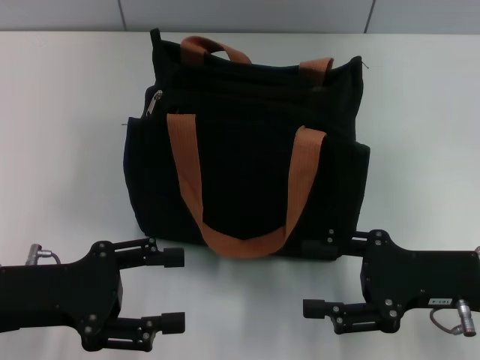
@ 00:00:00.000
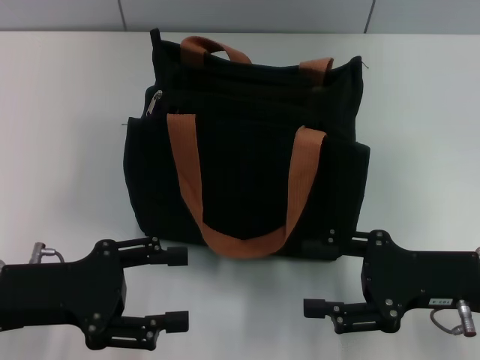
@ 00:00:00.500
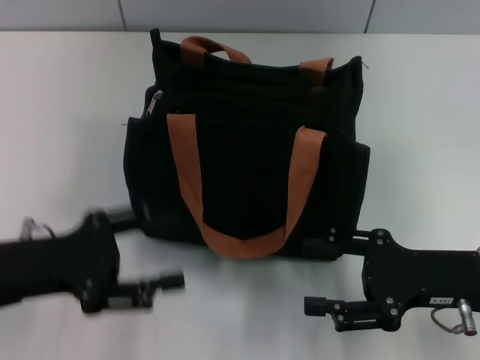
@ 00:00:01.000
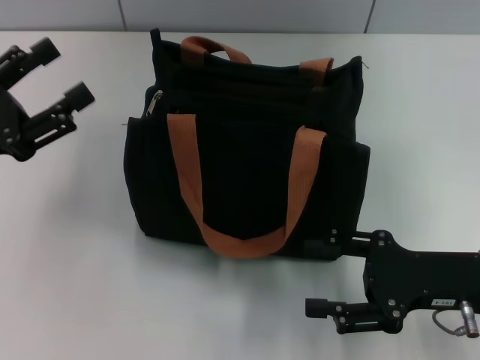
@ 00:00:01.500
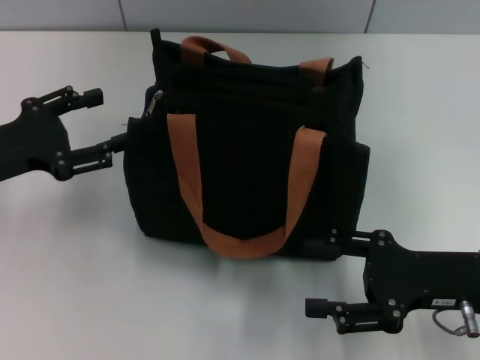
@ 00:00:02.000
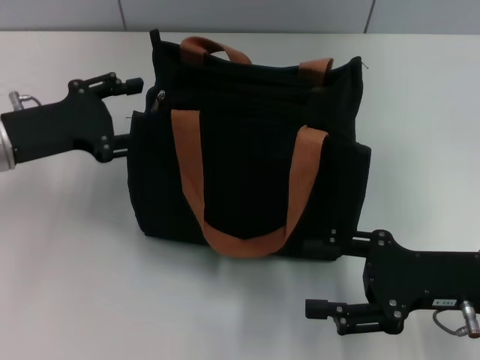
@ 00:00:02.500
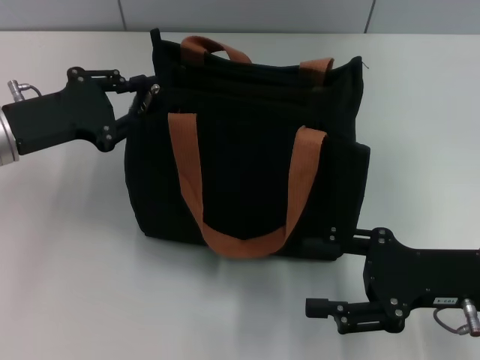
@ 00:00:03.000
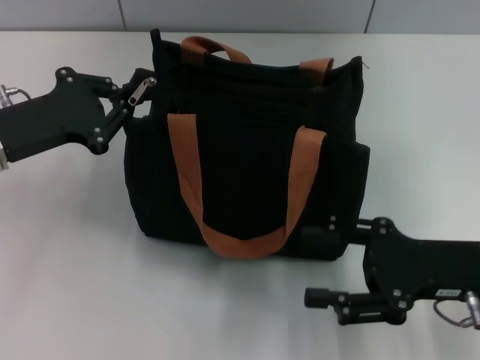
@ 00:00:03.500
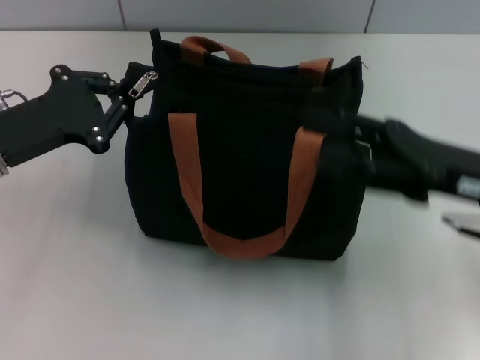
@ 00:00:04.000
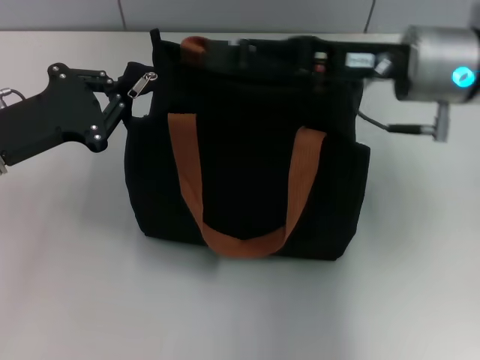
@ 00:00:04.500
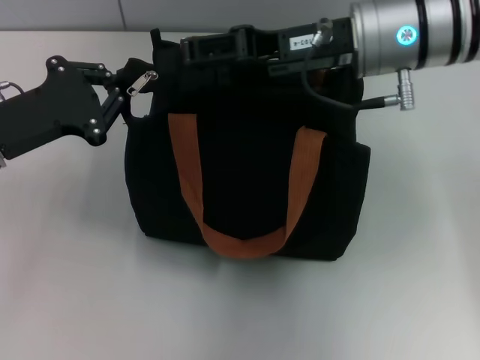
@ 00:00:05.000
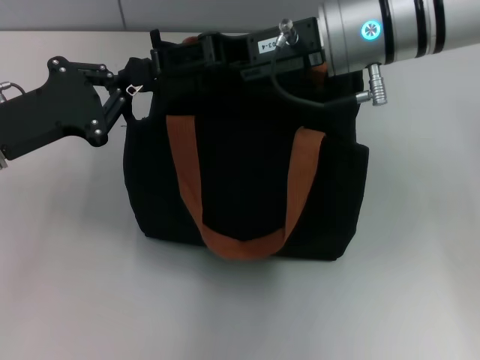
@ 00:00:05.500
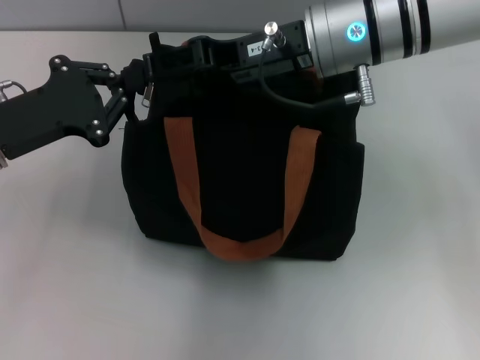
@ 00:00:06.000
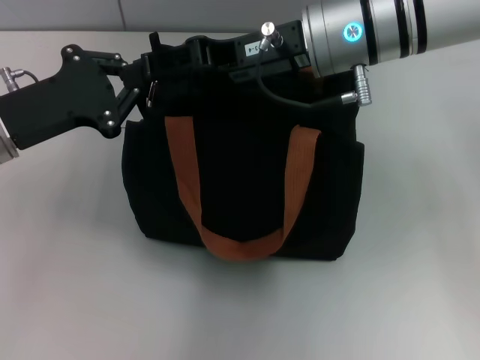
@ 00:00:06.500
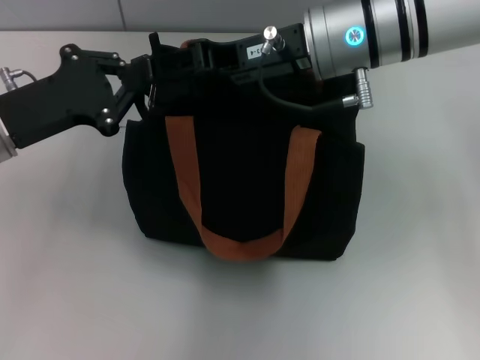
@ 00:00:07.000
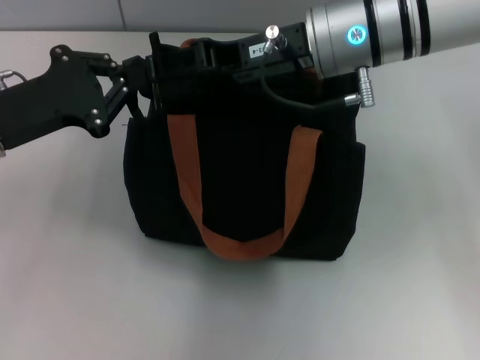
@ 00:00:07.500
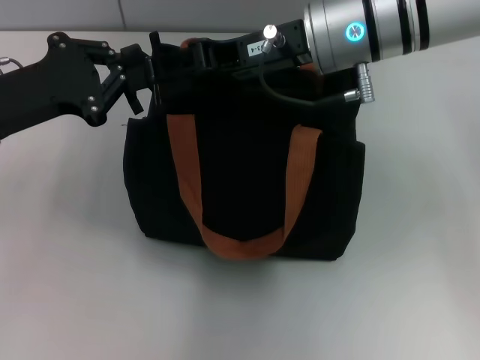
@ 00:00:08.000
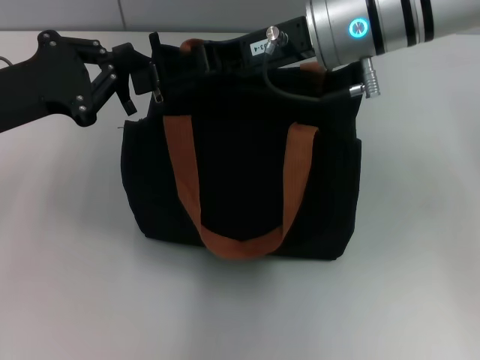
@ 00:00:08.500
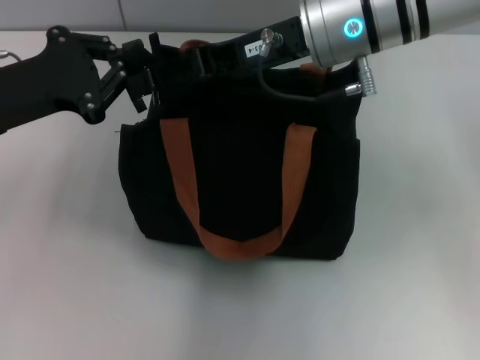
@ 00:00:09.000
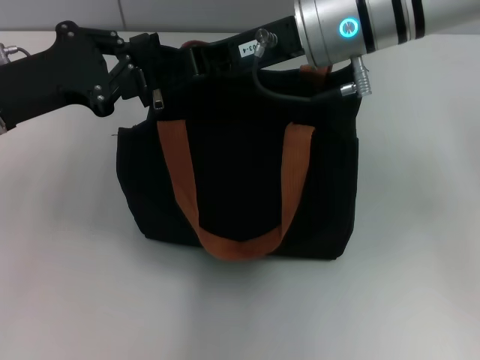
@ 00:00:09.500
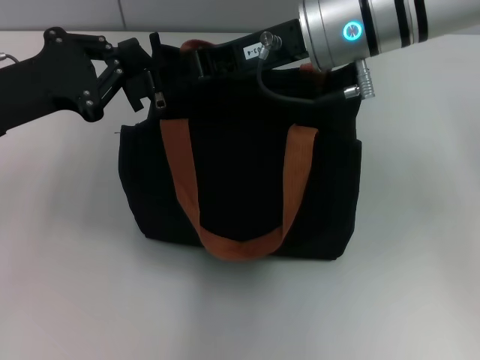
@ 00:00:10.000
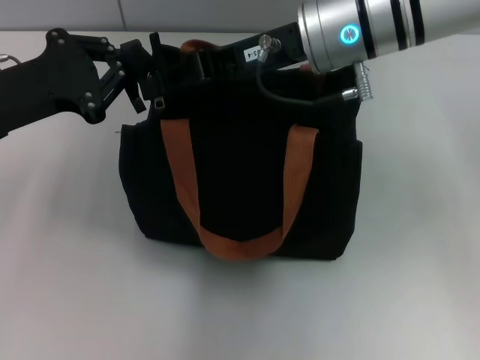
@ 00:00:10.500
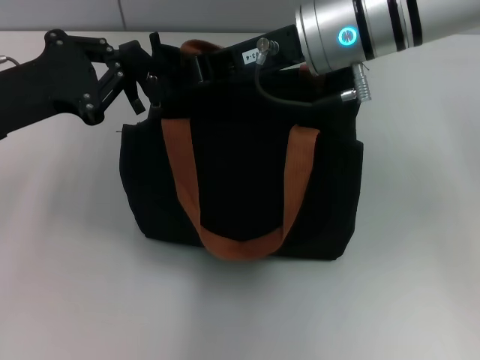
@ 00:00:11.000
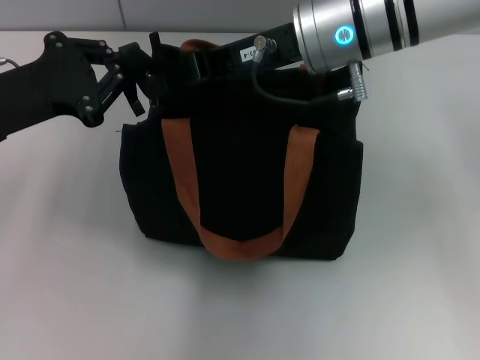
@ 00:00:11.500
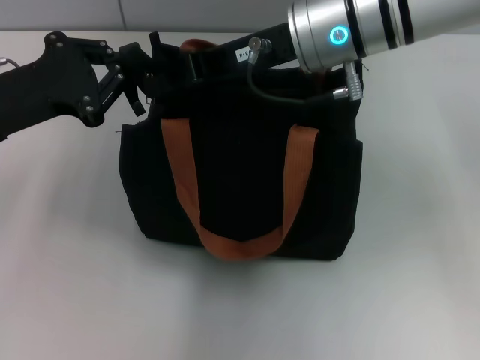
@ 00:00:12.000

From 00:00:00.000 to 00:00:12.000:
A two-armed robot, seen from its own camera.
From 00:00:00.000 to 00:00:02.000: The left gripper heads forward, covering about 10 cm.
From 00:00:02.000 to 00:00:04.000: The right gripper travels upward by about 5 cm; the left gripper closes its fingers.
From 00:00:04.000 to 00:00:06.000: The right gripper is displaced to the left, forward and upward by about 20 cm.
From 00:00:06.000 to 00:00:10.000: There are only small adjustments of the grippers.
From 00:00:10.000 to 00:00:12.000: The right gripper closes.

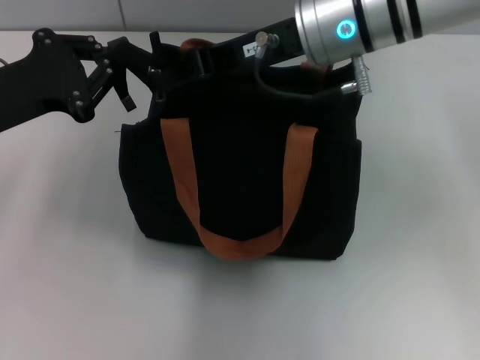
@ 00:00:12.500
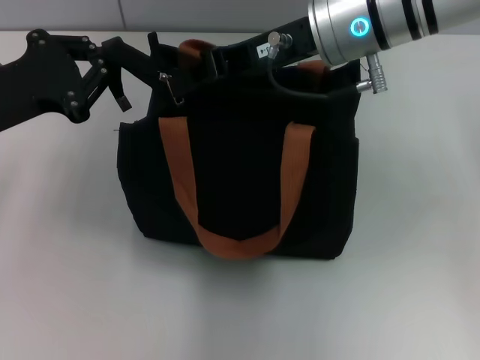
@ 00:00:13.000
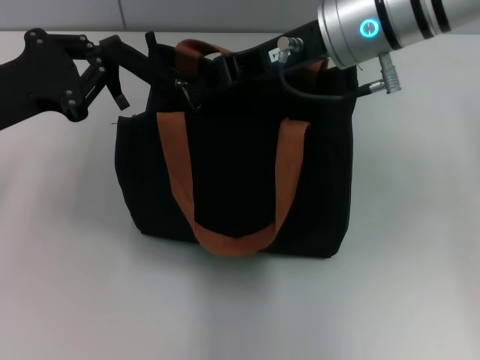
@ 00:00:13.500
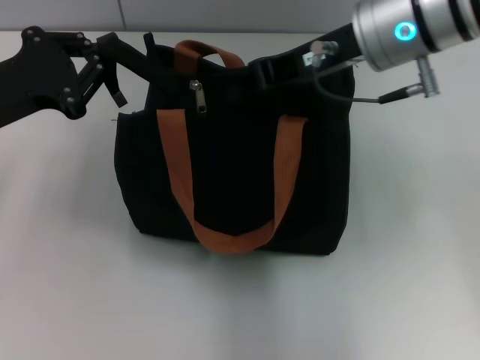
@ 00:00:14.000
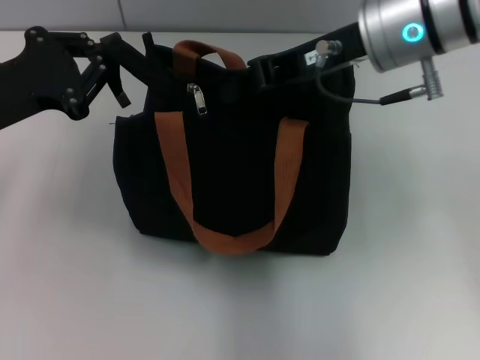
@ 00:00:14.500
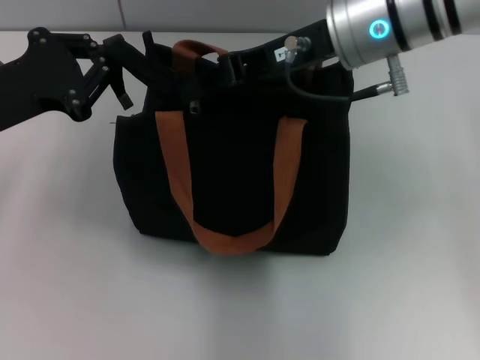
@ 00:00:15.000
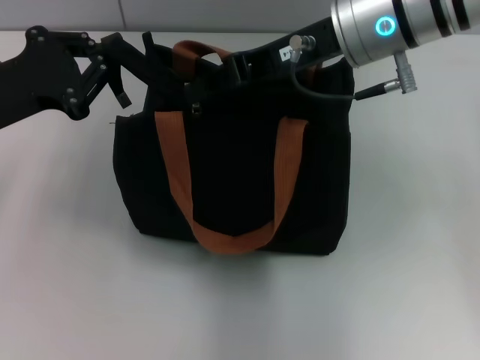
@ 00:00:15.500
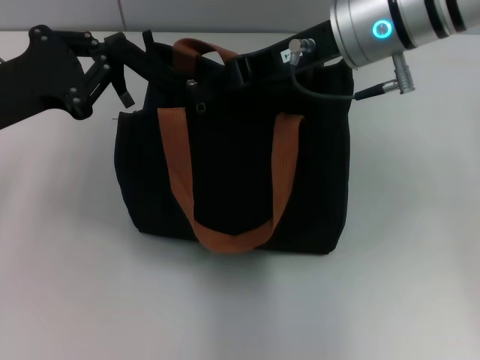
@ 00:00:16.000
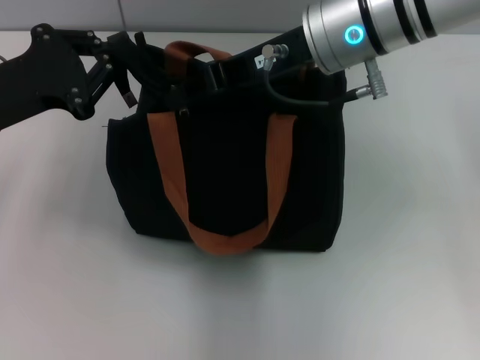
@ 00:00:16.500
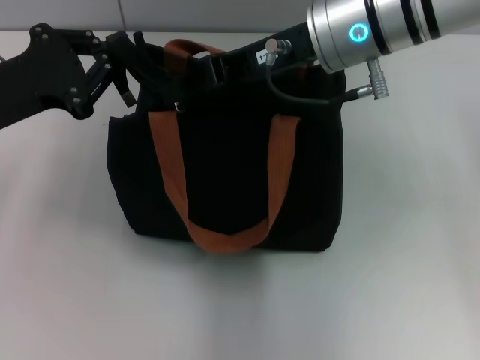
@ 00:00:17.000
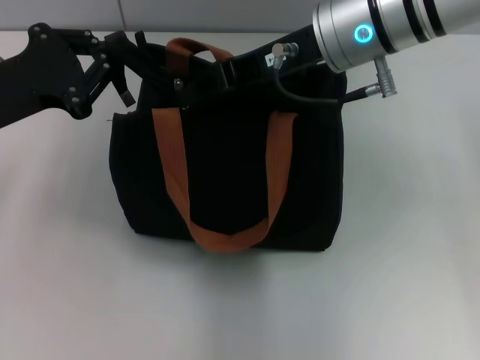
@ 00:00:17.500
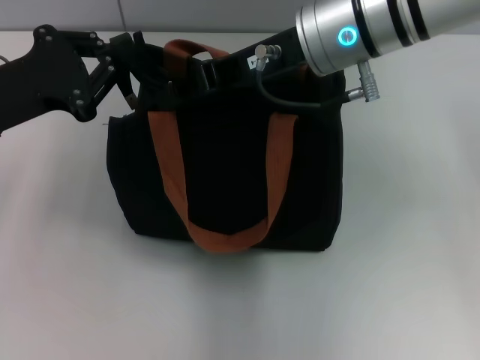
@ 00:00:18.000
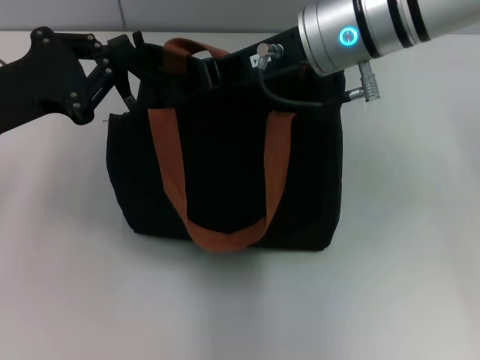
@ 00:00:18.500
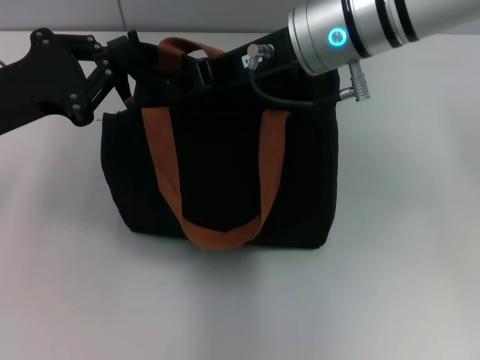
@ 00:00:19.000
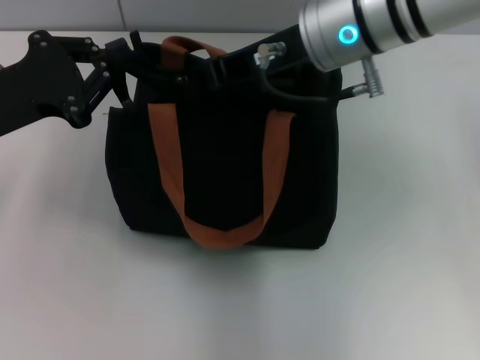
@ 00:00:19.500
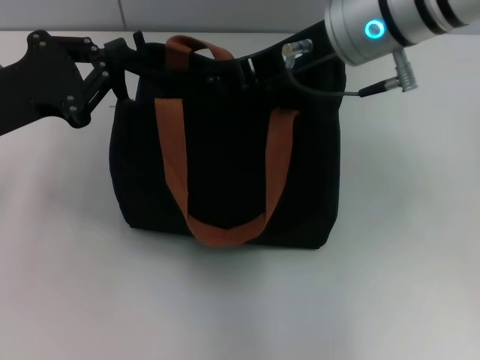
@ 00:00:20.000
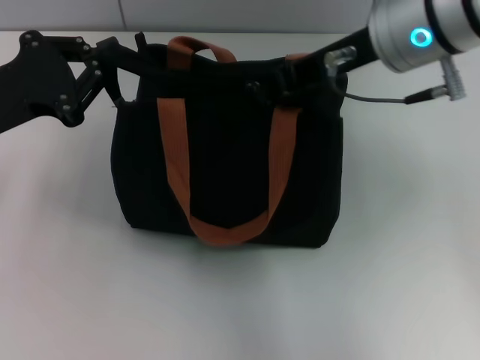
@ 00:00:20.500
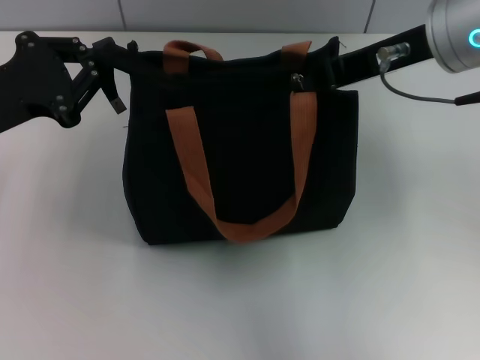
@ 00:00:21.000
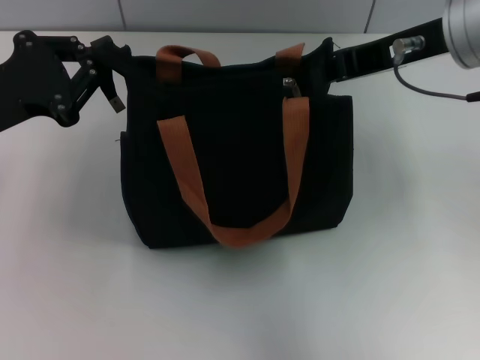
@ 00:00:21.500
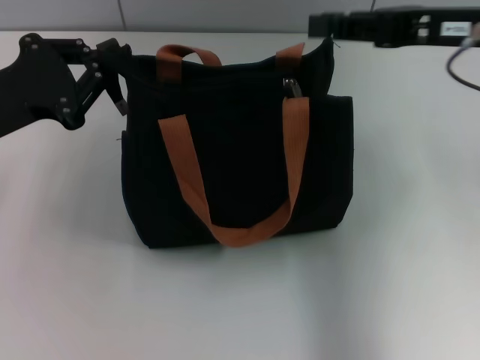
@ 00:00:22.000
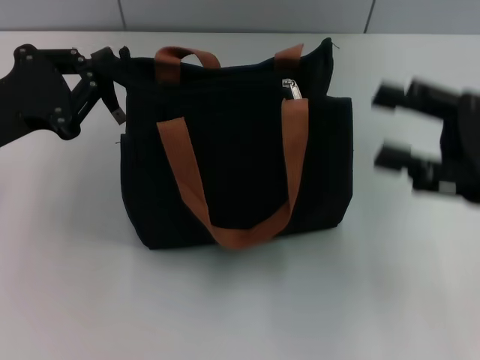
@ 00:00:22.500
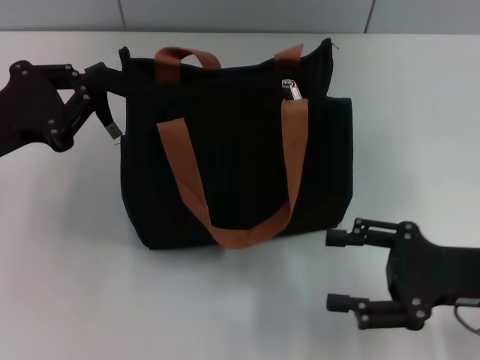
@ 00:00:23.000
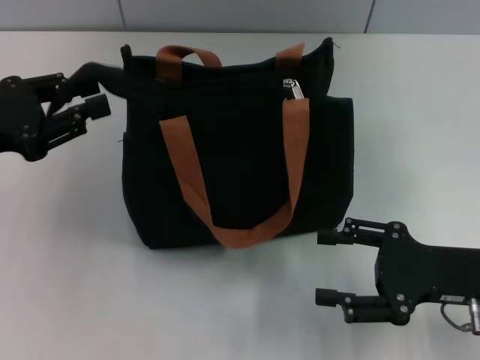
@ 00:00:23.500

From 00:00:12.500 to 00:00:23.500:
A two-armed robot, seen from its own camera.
Step, from 00:00:12.500 to 00:00:21.500: Pull up the zipper with your right hand.
From 00:00:12.500 to 00:00:18.000: There are only small adjustments of the grippers.
From 00:00:18.000 to 00:00:20.000: The right gripper closes.
From 00:00:20.000 to 00:00:21.500: The right gripper heads to the right, covering some 10 cm.
From 00:00:21.500 to 00:00:23.500: The right gripper moves downward, backward and to the right, about 25 cm, and opens.

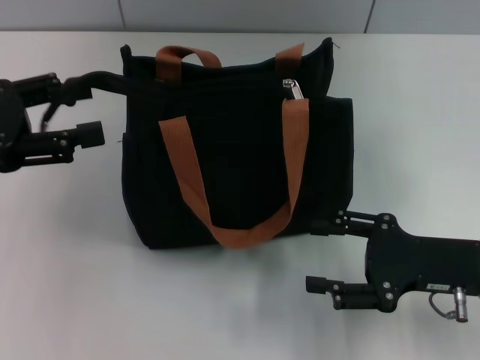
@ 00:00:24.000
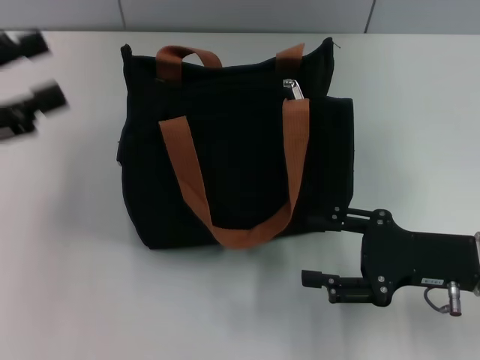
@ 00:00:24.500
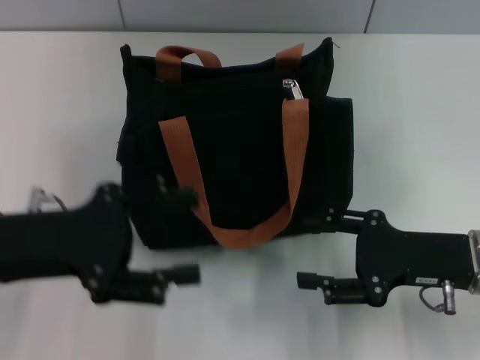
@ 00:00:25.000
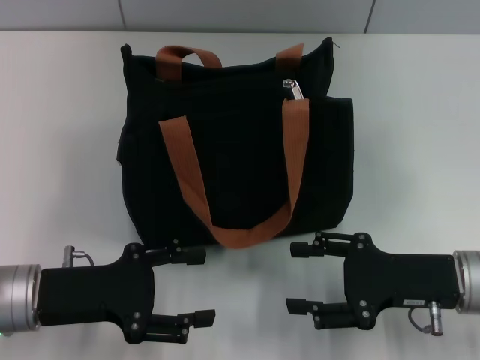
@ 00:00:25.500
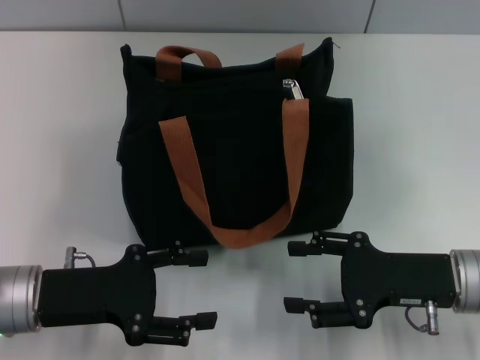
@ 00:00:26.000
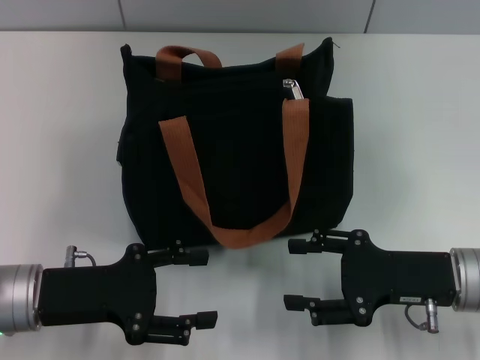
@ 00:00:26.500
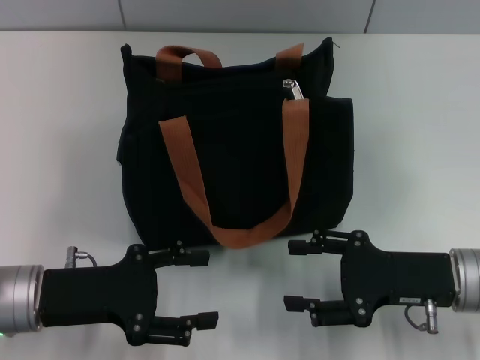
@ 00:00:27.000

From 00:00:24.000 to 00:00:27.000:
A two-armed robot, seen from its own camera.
From 00:00:24.000 to 00:00:25.500: The left gripper is displaced downward, to the right and backward by some 15 cm.
From 00:00:25.500 to 00:00:27.000: Neither gripper changes place.
